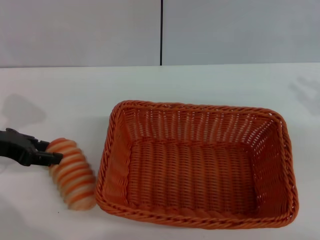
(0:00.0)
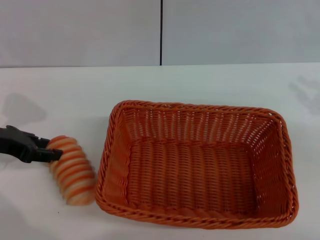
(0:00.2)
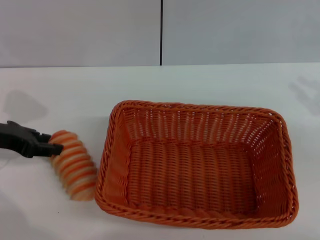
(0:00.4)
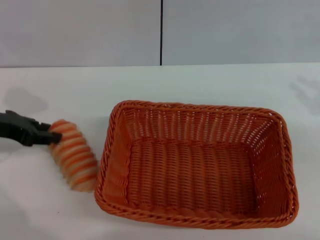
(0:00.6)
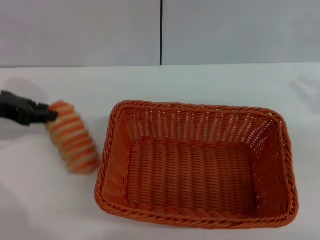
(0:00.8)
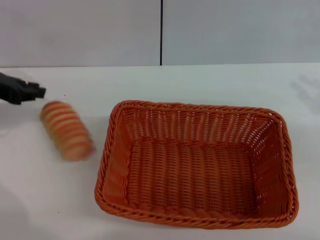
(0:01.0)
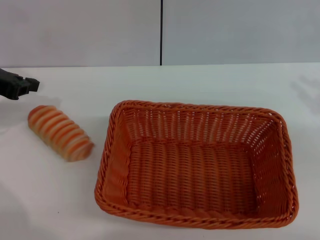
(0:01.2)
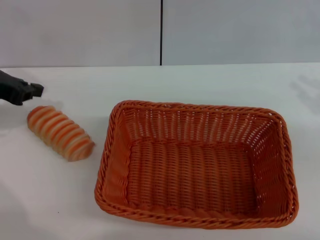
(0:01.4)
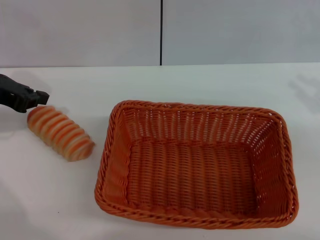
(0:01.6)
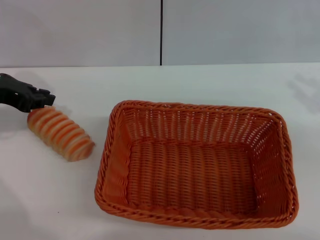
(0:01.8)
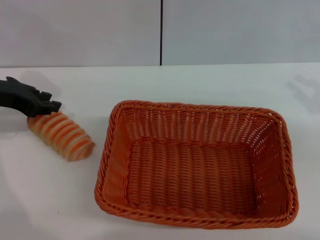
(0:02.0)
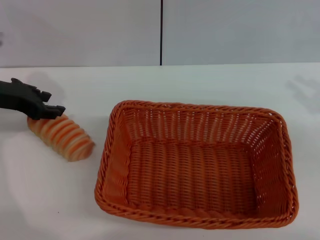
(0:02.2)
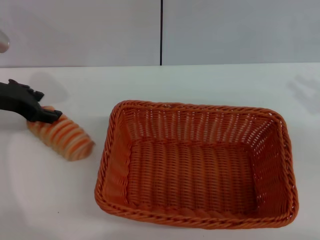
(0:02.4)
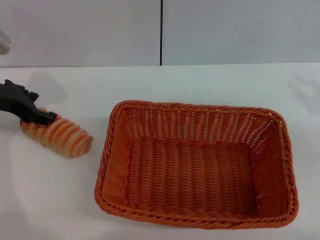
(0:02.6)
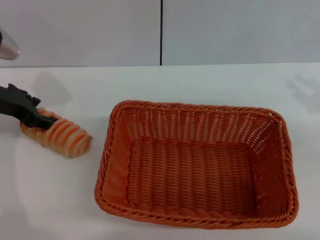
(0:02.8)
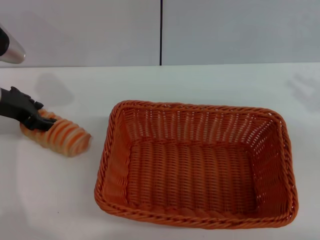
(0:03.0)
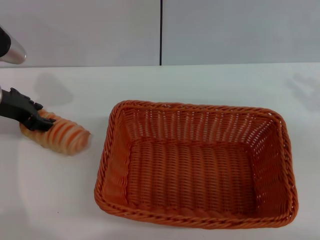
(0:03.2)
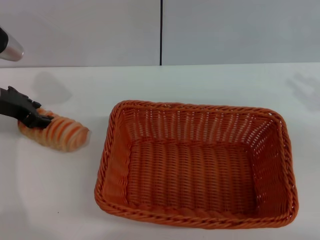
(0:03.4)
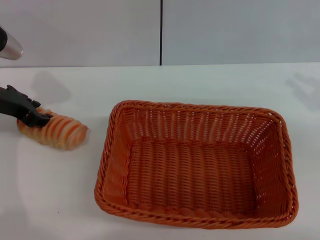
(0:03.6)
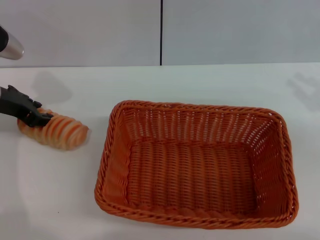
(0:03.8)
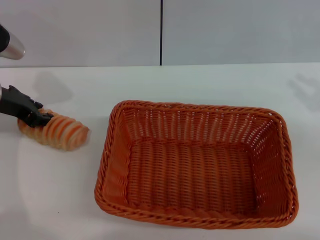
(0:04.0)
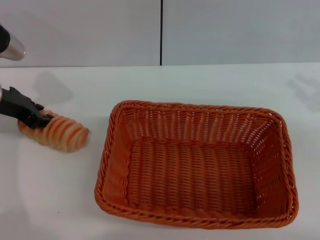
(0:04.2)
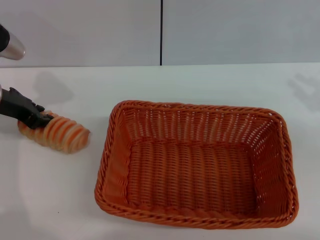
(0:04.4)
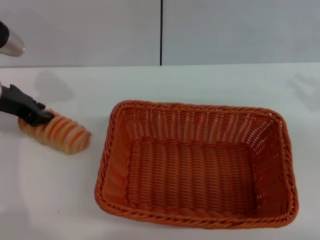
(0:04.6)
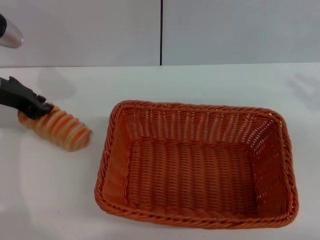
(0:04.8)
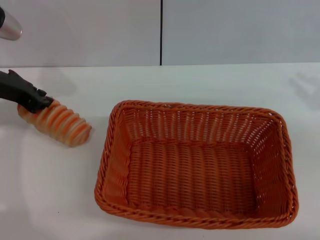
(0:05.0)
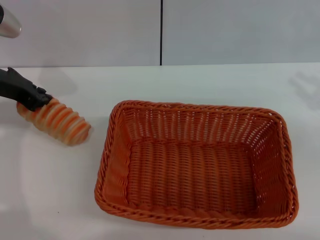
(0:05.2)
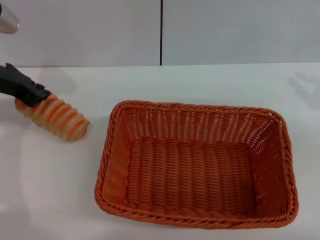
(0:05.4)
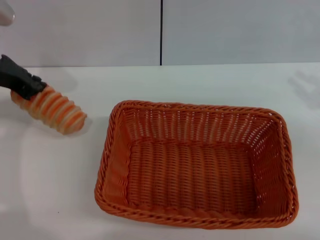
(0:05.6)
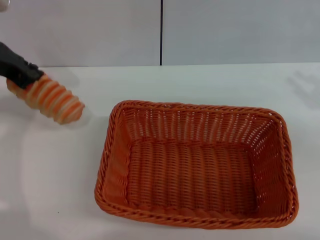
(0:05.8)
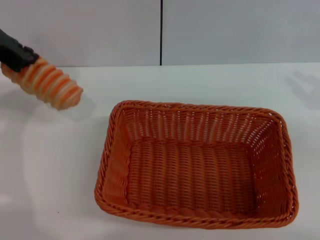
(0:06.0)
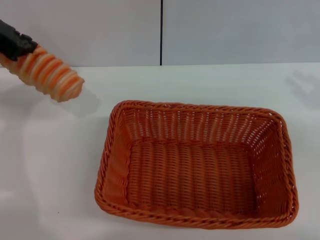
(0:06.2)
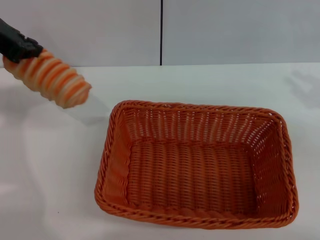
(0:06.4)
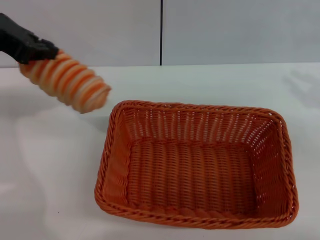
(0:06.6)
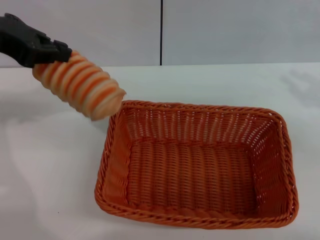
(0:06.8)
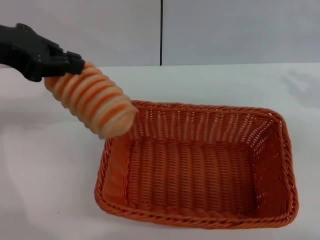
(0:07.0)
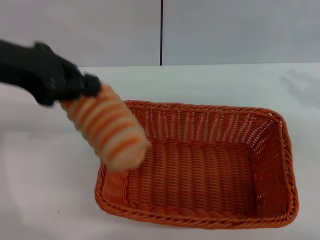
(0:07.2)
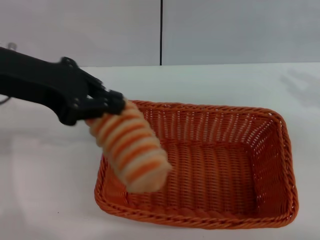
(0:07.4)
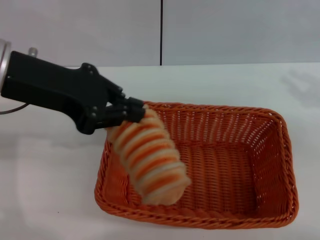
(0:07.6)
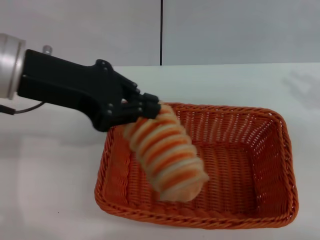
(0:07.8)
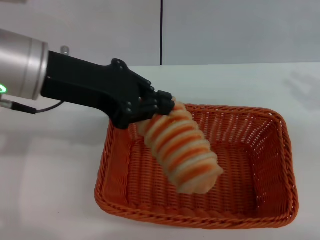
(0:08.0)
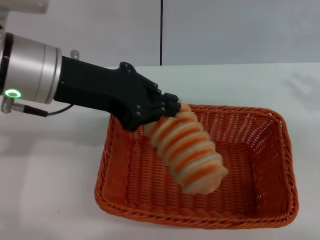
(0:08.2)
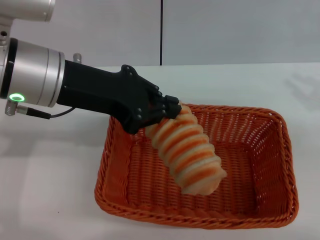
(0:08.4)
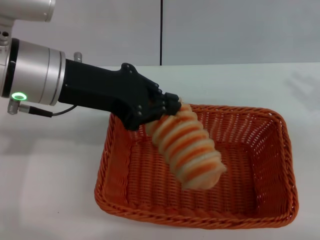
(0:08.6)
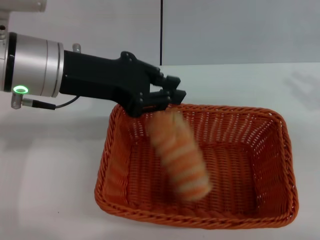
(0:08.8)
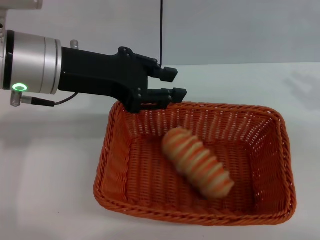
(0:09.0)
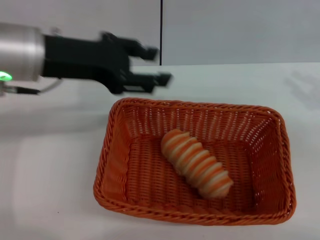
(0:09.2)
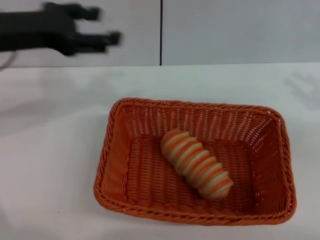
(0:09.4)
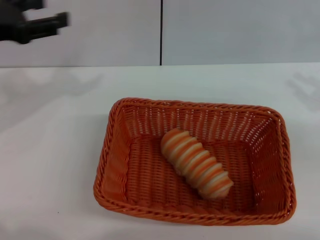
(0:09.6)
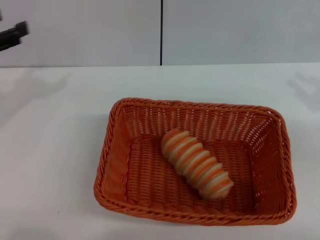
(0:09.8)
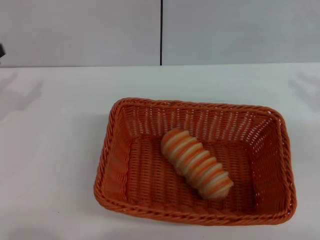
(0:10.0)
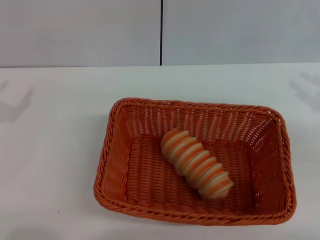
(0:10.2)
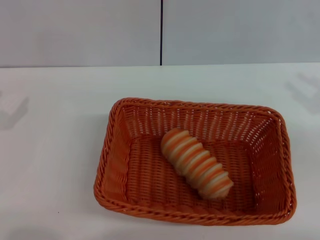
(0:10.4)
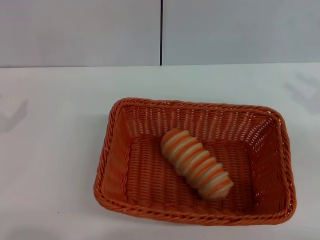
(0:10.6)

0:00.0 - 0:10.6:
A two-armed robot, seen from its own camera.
Step, 0:00.0 - 0:05.4: Pick up the long bread with the left gripper.
Step, 0:05.6 - 0:09.0: Place the long bread into the light basket with the left gripper.
0:00.0 - 0:01.6: The left gripper moves upward, about 5 cm, and closes up.
0:01.6 - 0:03.0: The left gripper moves about 5 cm, and opens up.
0:03.0 - 0:04.6: The left gripper closes its fingers.
0:04.6 - 0:06.0: The left gripper is displaced upward by roughly 10 cm.
0:06.0 - 0:07.6: The left gripper shifts approximately 10 cm backward and to the right.
0:07.6 - 0:09.0: The left gripper moves approximately 5 cm.
0:09.0 - 0:10.6: The left gripper moves to the left and downward, approximately 25 cm, and opens up.
